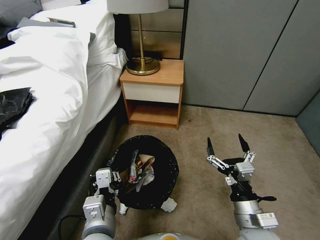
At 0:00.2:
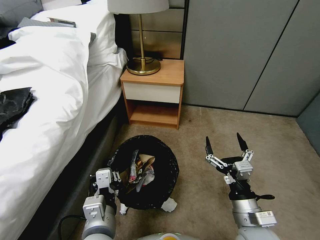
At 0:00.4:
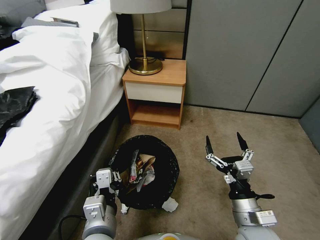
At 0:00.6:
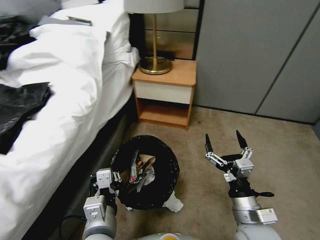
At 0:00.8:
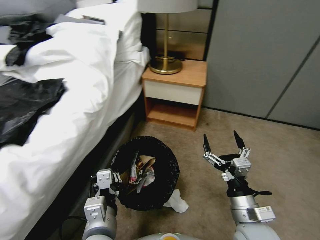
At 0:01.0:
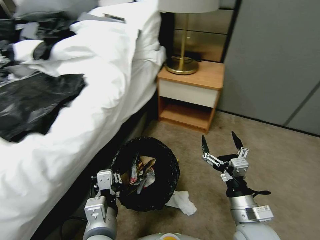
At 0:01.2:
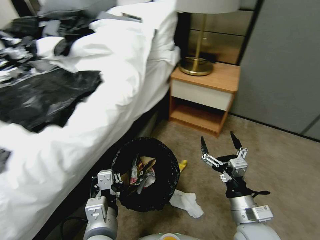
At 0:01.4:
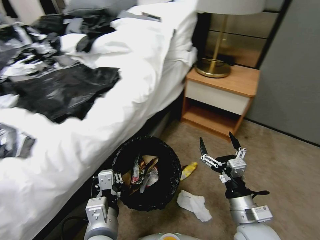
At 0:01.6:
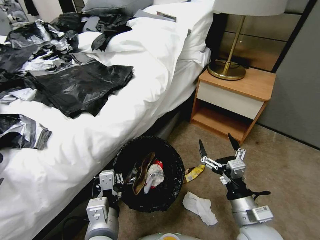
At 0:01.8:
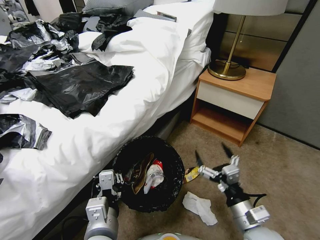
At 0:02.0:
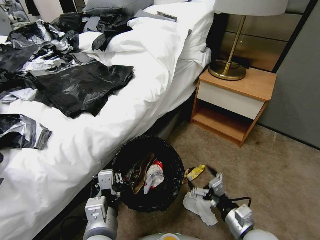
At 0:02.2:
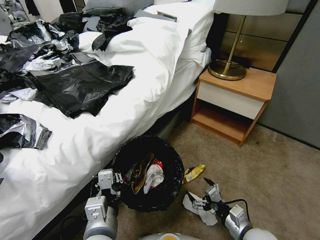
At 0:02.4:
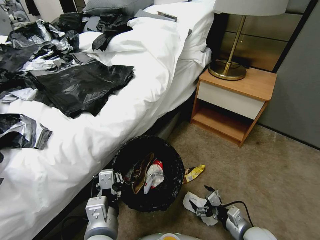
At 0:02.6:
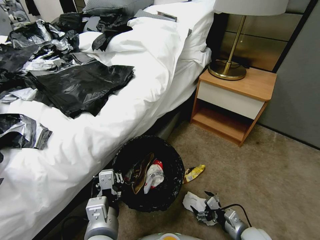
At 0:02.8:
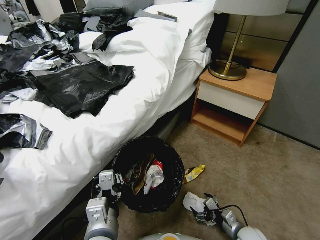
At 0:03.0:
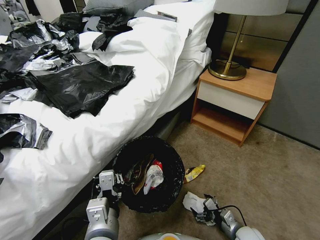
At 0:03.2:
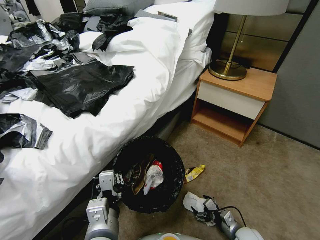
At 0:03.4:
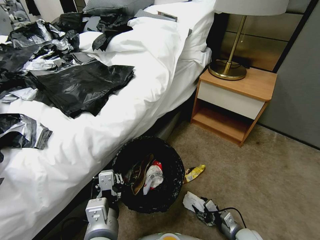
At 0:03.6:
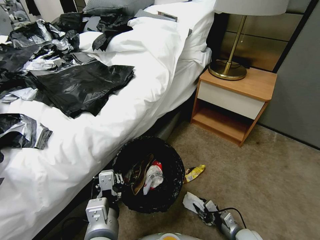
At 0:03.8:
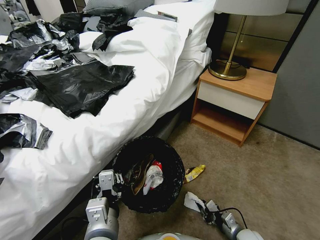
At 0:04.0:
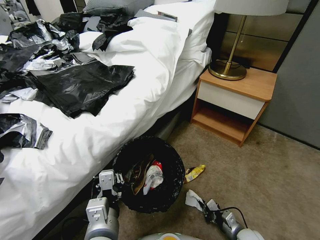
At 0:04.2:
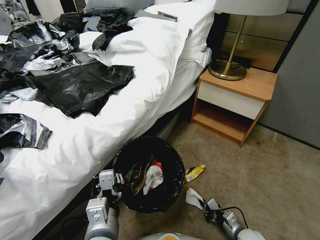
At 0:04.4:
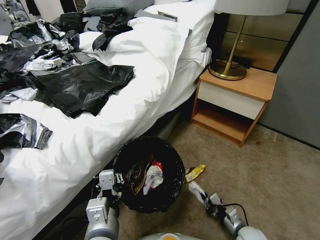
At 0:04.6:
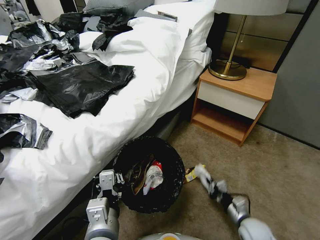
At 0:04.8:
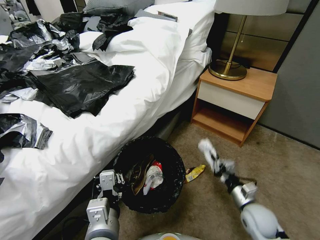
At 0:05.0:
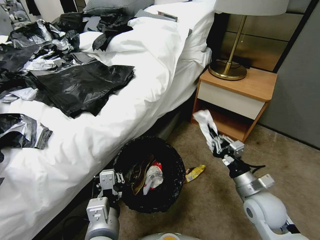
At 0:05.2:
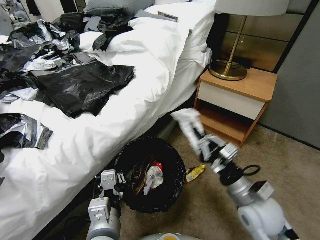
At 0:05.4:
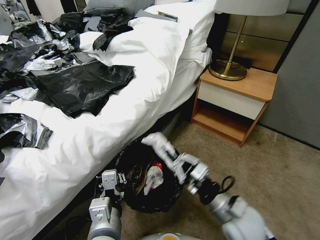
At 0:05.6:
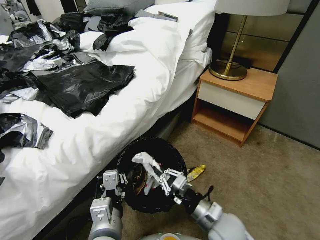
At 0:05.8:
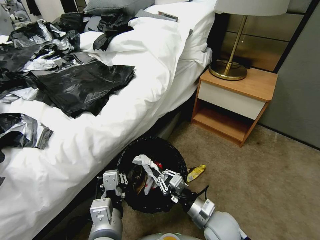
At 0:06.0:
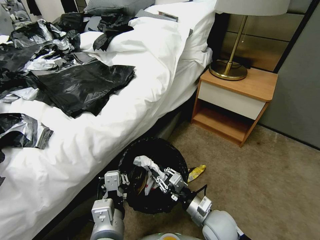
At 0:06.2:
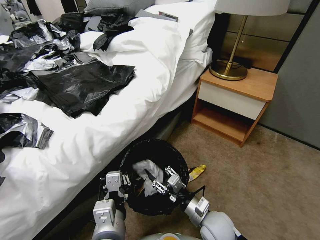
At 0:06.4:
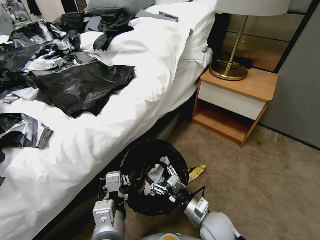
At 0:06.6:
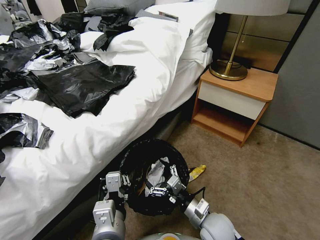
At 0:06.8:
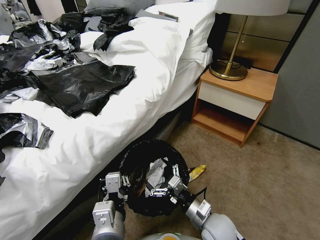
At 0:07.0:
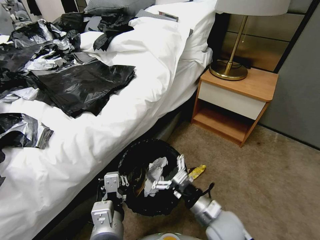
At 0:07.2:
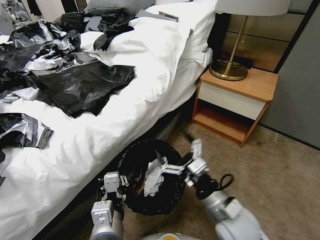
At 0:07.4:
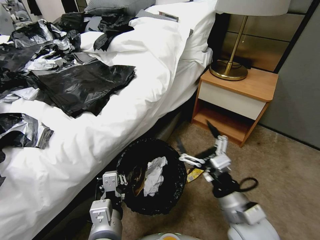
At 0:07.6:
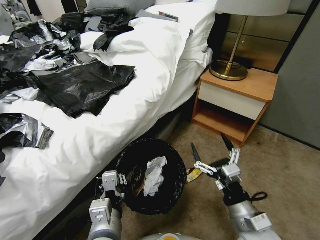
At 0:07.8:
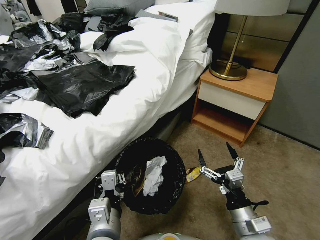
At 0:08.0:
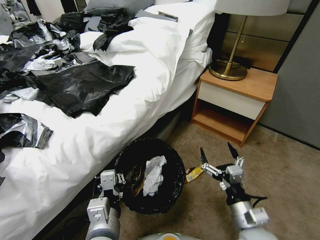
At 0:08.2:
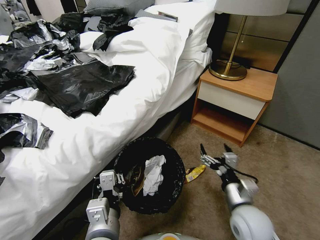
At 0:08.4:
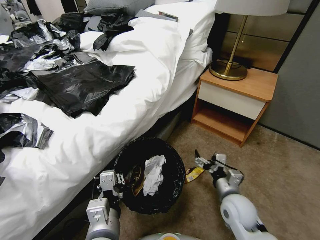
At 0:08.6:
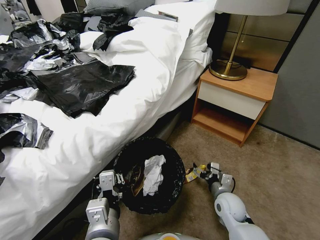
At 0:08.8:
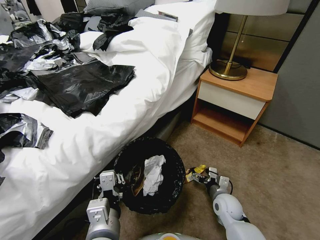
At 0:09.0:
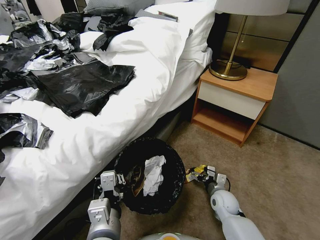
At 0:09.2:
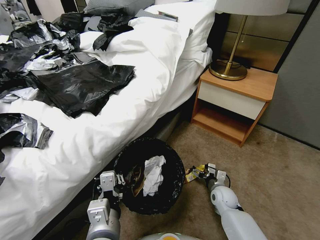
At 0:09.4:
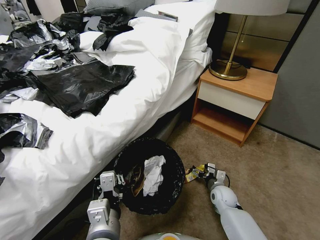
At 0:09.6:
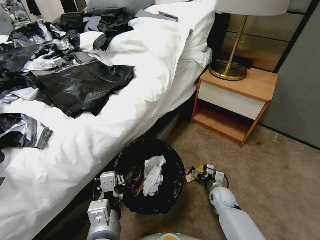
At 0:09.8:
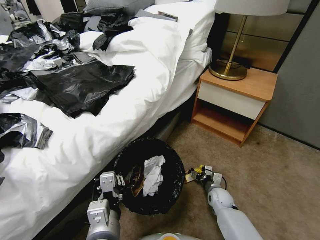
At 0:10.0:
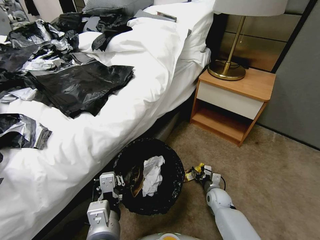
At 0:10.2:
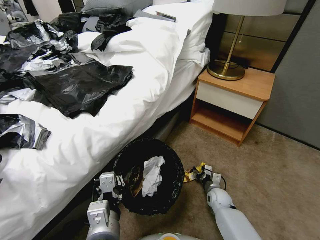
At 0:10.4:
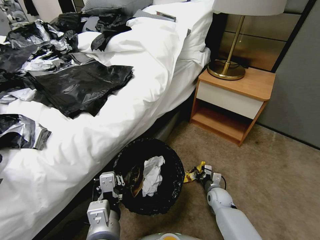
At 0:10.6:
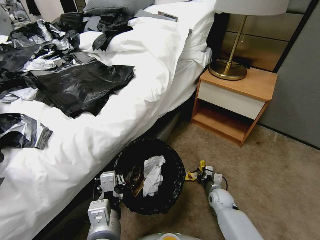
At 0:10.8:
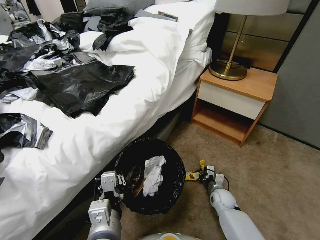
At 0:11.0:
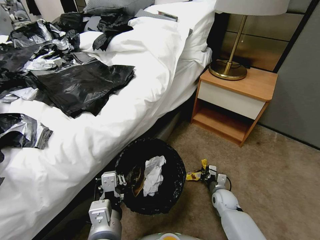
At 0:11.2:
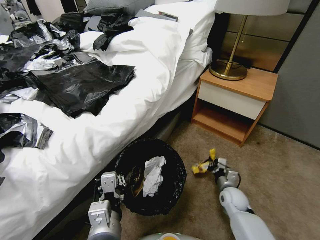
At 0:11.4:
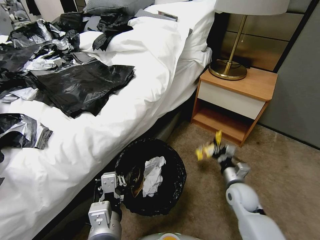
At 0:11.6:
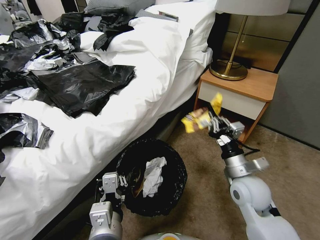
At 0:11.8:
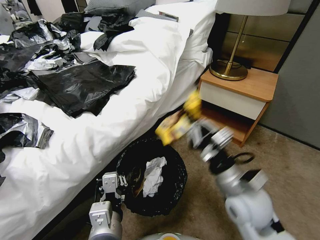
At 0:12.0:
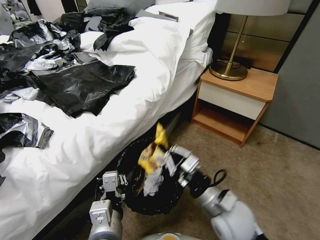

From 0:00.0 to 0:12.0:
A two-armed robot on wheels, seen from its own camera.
Task of the whole recording: Pick up the trash bin, then pick up the garbage from the floor and place it into the trash bin.
From 0:01.6 to 0:03.0: The right gripper moves downward, some 25 cm.
From 0:03.0 to 0:04.4: The right gripper closes.
From 0:04.4 to 0:06.0: The right gripper heads to the left and upward, covering approximately 20 cm.
From 0:06.0 to 0:07.6: The right gripper moves upward and to the right, some 10 cm, and opens.
From 0:07.6 to 0:09.0: The right gripper is displaced downward and forward by approximately 25 cm.
From 0:09.0 to 0:10.4: The right gripper shifts about 5 cm downward, and closes up.
From 0:10.4 to 0:12.0: The right gripper shifts approximately 30 cm upward and backward.

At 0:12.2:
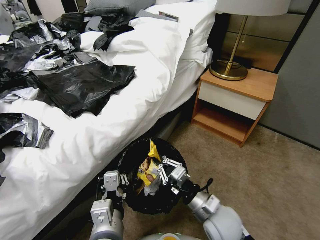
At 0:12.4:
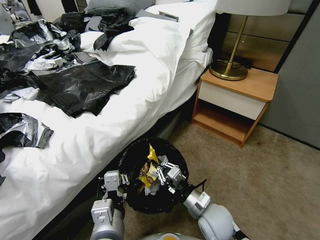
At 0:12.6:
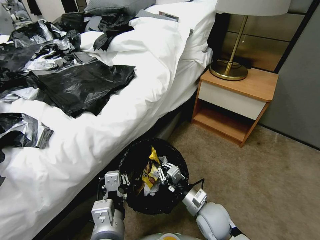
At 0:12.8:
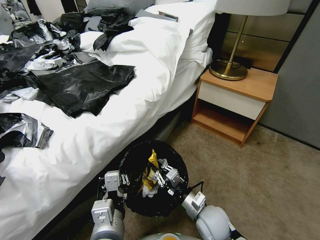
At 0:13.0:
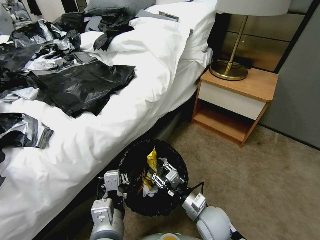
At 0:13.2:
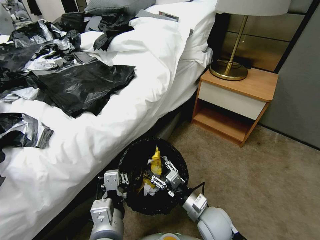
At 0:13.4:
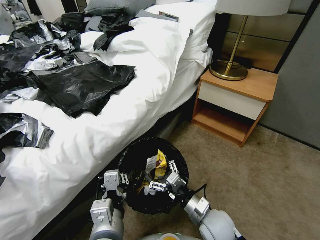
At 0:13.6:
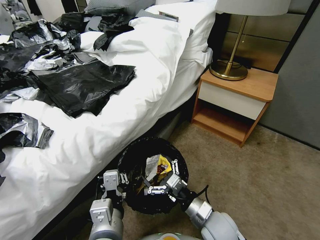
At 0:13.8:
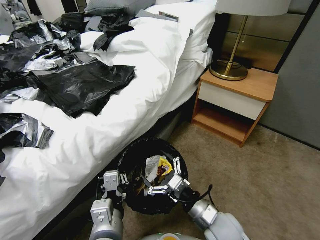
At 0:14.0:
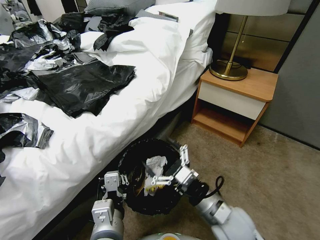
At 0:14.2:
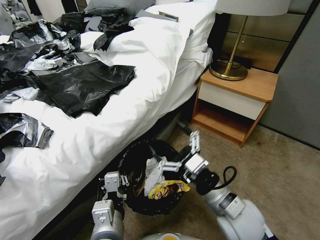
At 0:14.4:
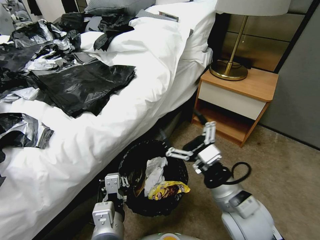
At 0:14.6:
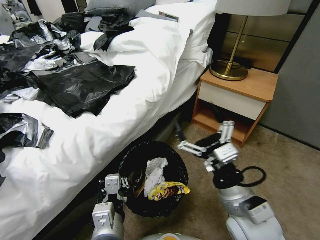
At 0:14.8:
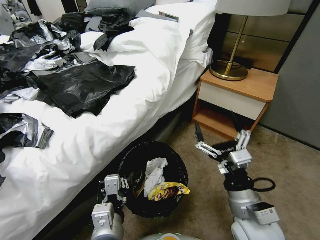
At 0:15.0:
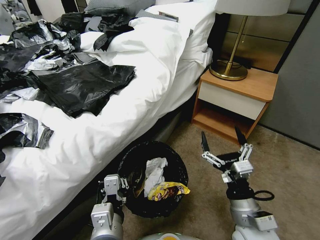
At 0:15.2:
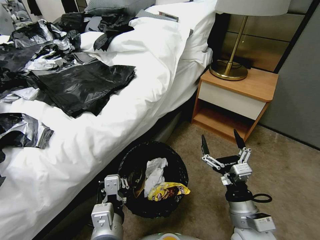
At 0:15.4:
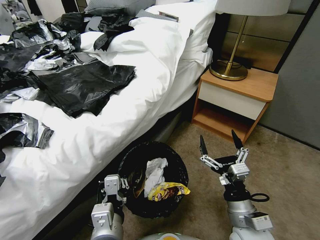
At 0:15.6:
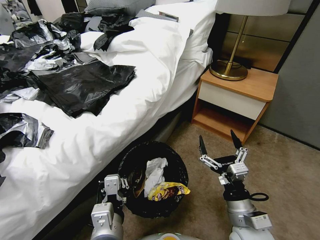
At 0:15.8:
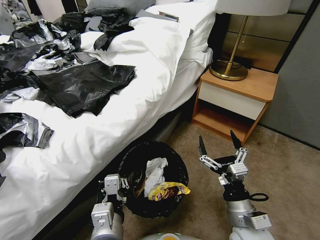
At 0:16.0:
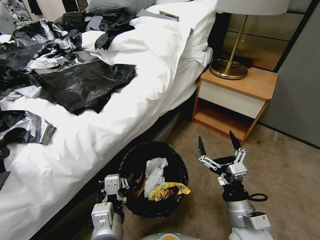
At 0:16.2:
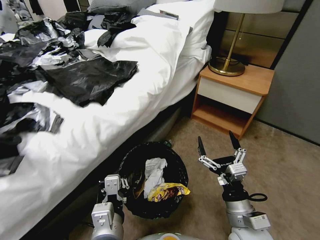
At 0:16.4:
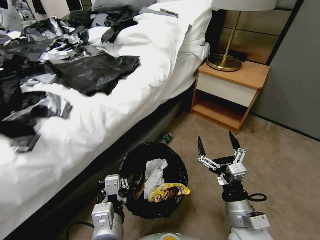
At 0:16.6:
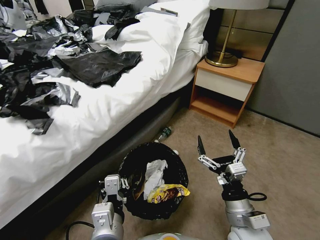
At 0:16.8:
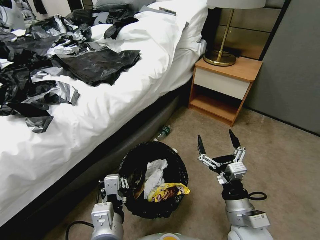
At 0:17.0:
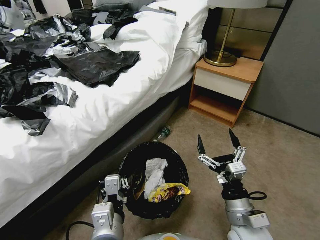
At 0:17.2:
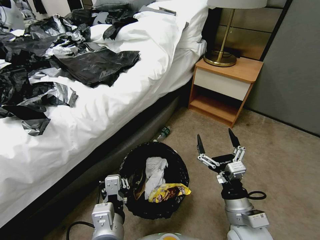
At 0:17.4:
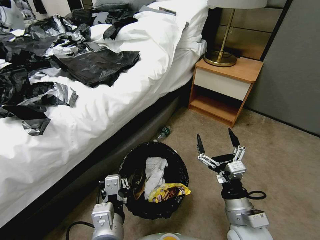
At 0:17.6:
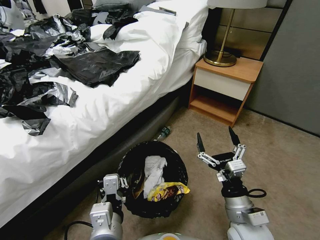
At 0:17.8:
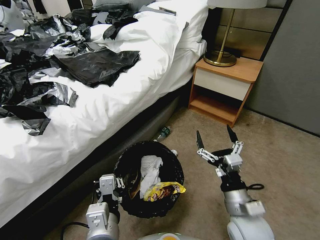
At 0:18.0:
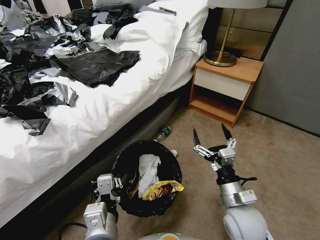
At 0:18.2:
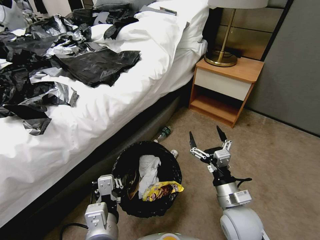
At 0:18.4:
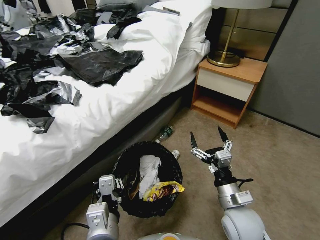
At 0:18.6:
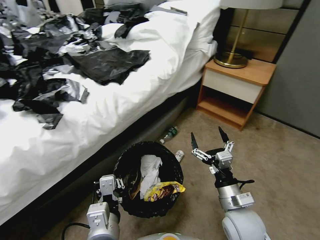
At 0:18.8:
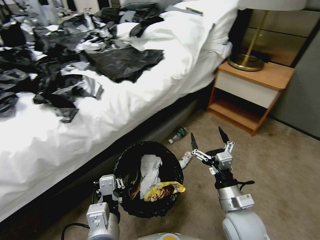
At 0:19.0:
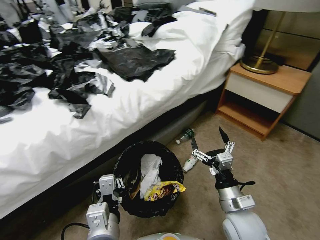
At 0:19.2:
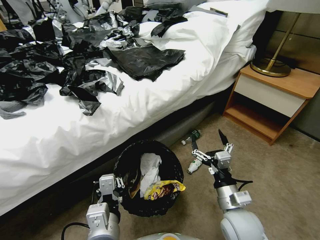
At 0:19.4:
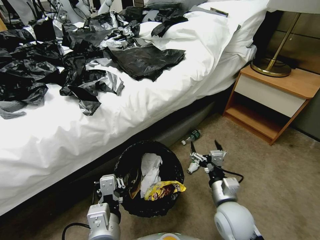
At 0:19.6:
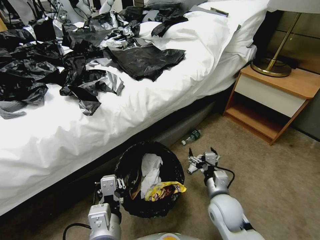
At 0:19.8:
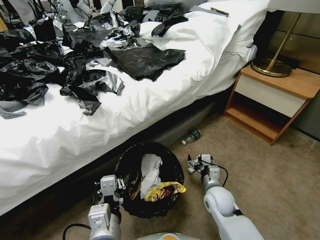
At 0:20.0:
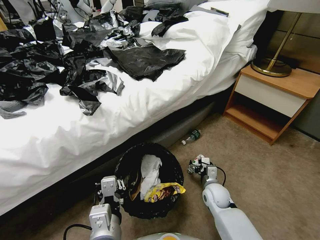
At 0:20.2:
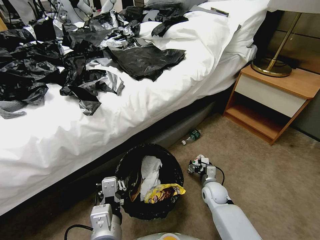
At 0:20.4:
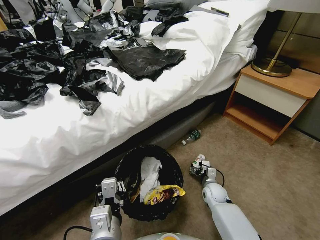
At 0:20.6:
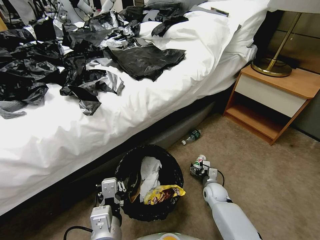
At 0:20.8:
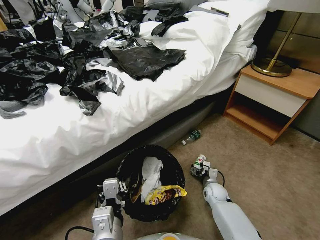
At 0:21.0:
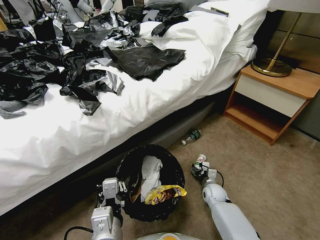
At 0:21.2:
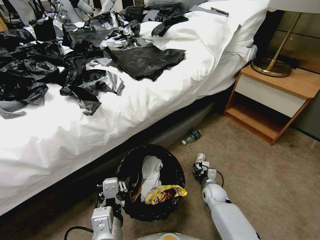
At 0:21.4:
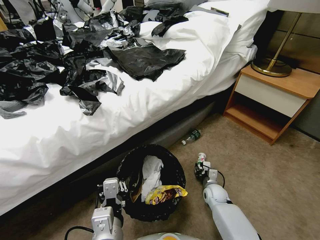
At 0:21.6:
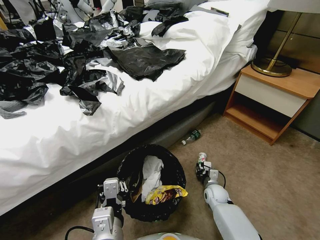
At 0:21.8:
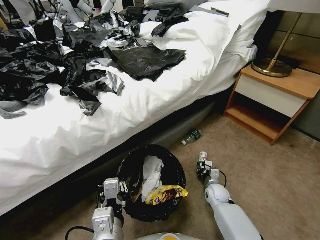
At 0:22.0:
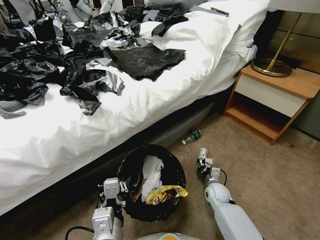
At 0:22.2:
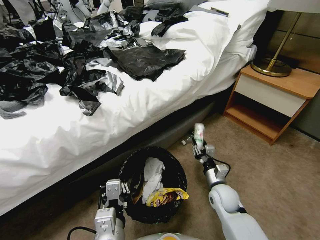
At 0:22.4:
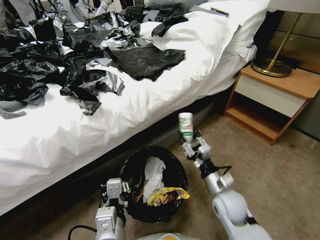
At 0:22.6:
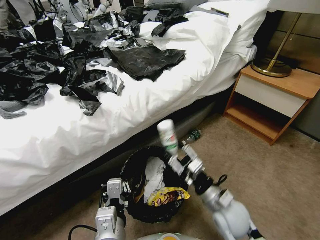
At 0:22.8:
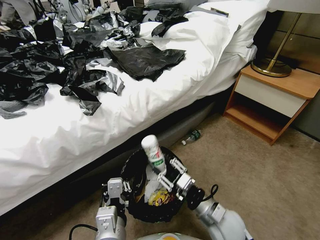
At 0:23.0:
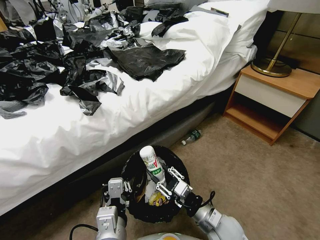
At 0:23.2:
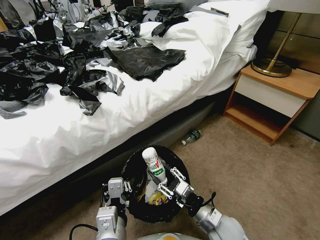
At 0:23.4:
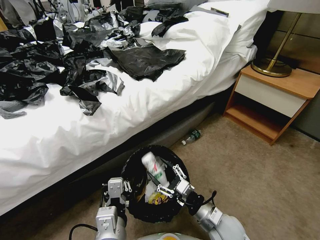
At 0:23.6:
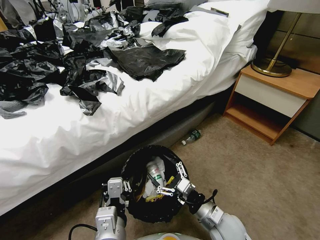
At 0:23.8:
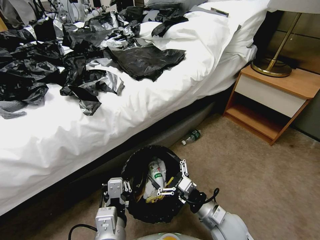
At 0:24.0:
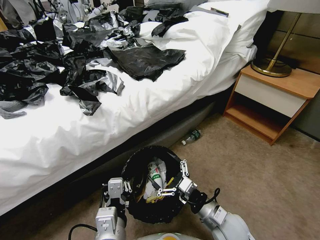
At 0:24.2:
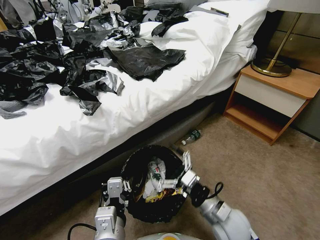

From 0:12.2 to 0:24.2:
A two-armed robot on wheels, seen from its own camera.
Task of the whole recording: Pick up the trash bin, then pick up the garbage from the floor and place it into the trash bin.
From 0:12.2 to 0:13.8: The right gripper opens its fingers.
From 0:13.8 to 0:15.2: The right gripper goes approximately 5 cm to the right, and travels upward and back again, about 10 cm each way.
From 0:16.6 to 0:18.2: The grippers make only small movements.
From 0:18.2 to 0:19.8: The right gripper shifts roughly 15 cm downward and forward.
From 0:19.8 to 0:21.2: The right gripper travels downward and forward by about 15 cm, and closes.
From 0:21.2 to 0:22.6: The right gripper goes about 25 cm upward and backward.
From 0:22.6 to 0:24.2: The right gripper opens.
